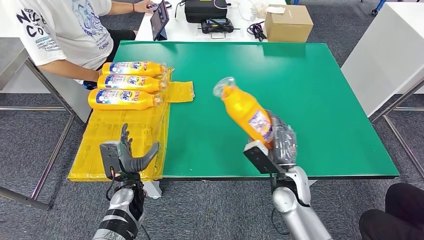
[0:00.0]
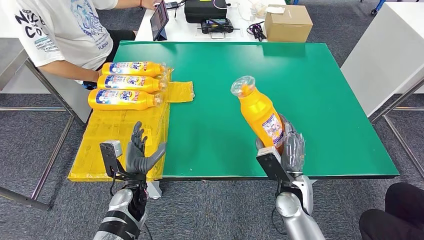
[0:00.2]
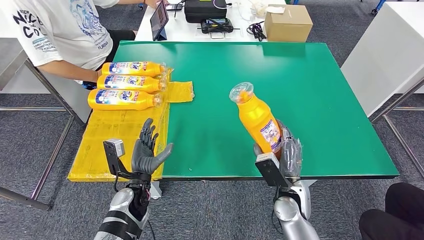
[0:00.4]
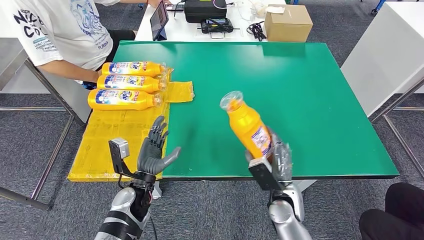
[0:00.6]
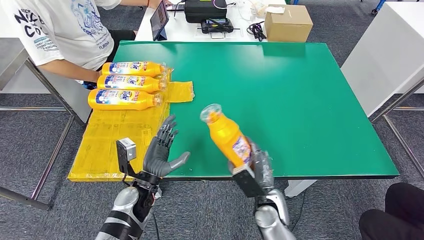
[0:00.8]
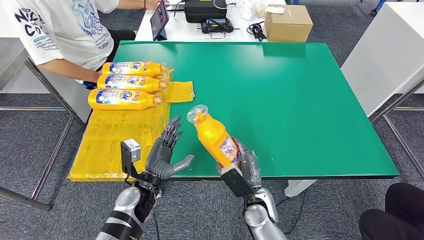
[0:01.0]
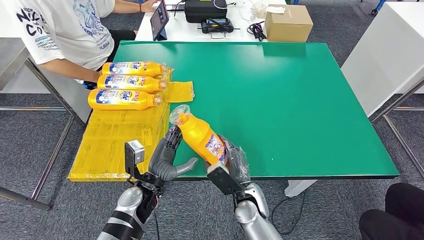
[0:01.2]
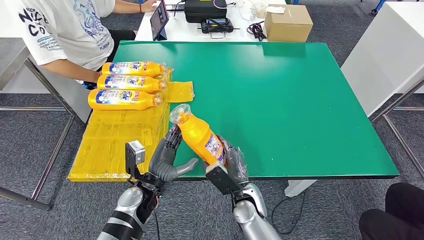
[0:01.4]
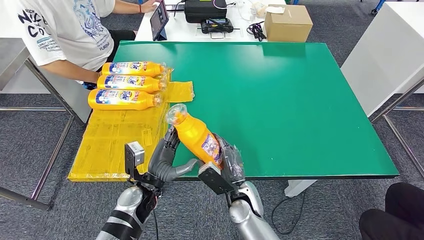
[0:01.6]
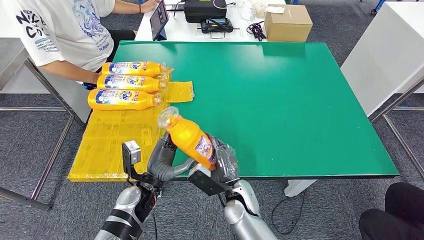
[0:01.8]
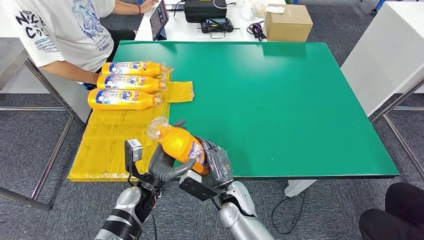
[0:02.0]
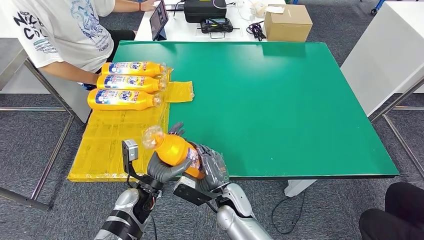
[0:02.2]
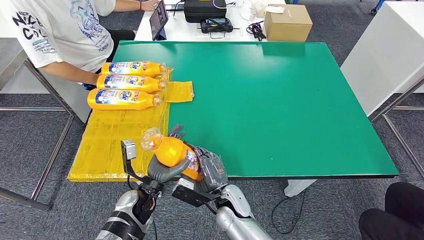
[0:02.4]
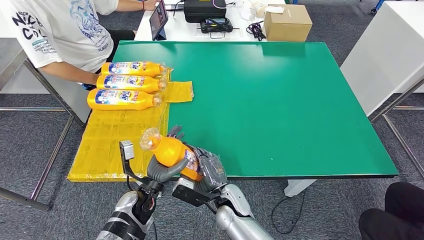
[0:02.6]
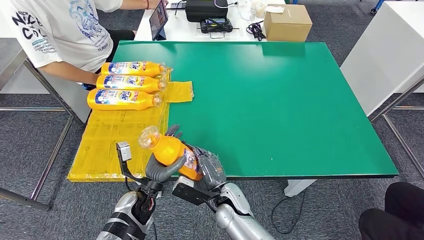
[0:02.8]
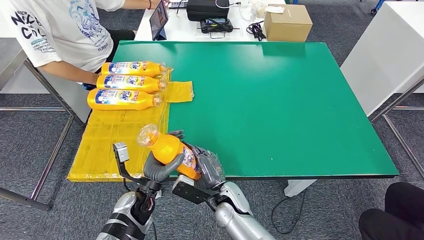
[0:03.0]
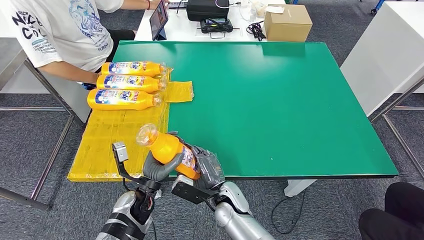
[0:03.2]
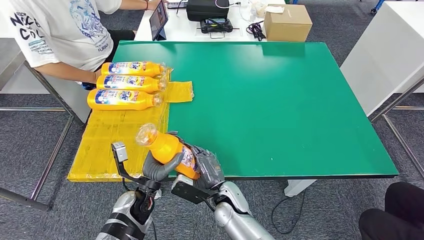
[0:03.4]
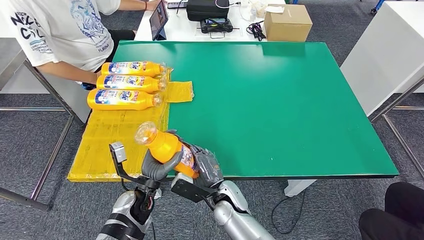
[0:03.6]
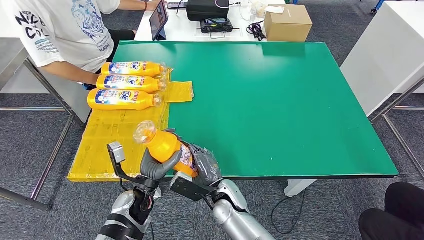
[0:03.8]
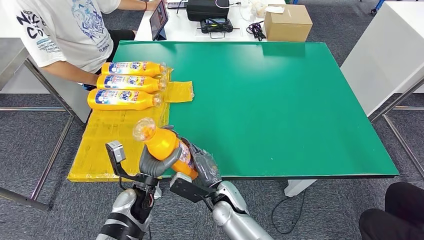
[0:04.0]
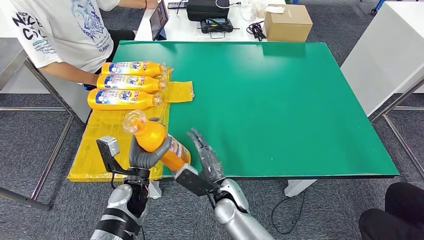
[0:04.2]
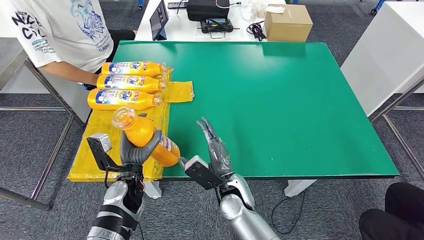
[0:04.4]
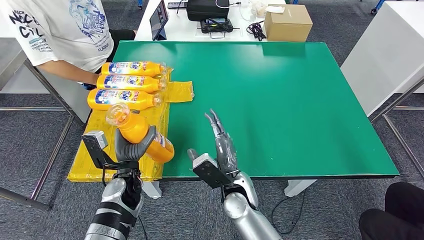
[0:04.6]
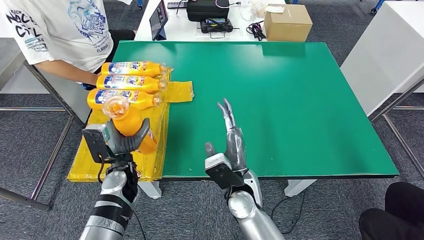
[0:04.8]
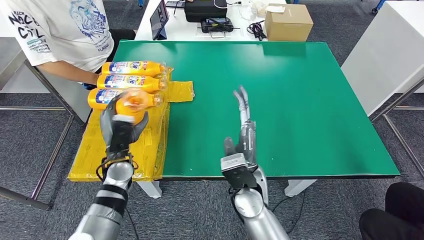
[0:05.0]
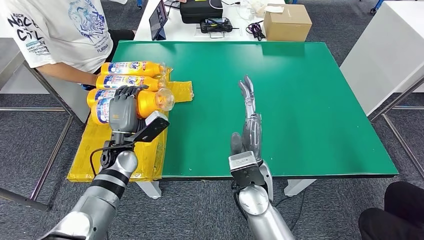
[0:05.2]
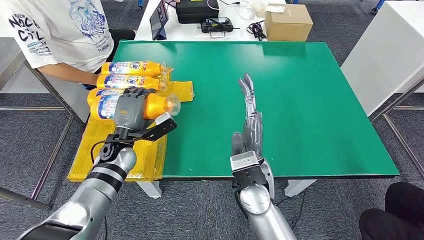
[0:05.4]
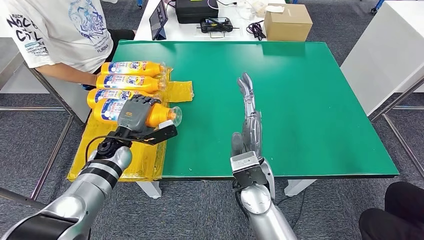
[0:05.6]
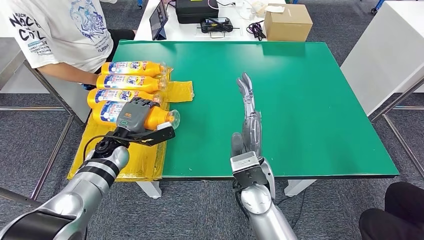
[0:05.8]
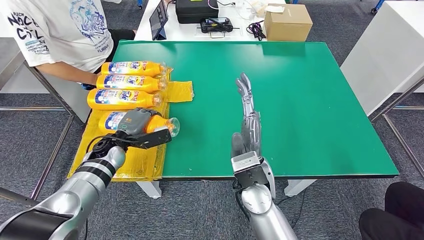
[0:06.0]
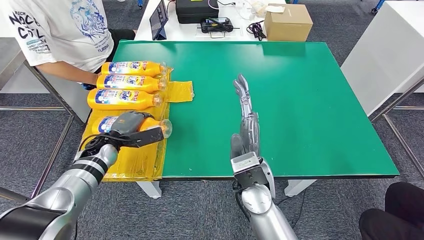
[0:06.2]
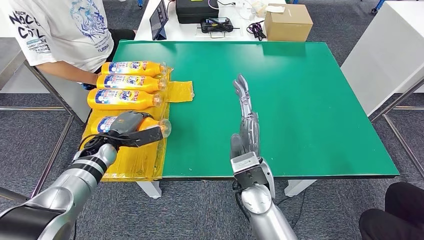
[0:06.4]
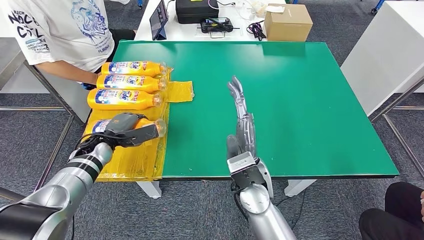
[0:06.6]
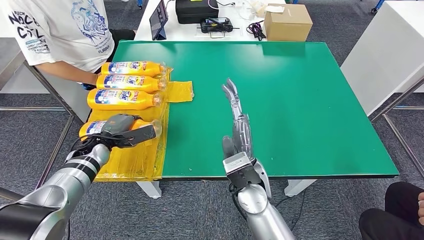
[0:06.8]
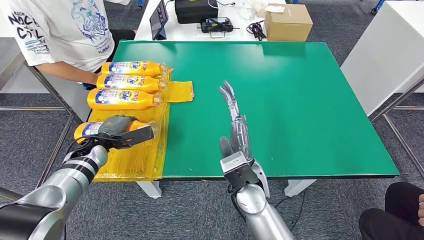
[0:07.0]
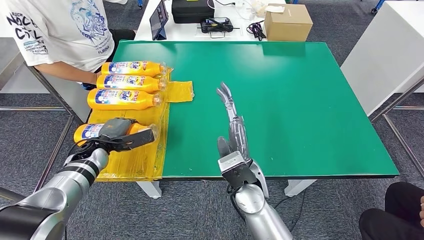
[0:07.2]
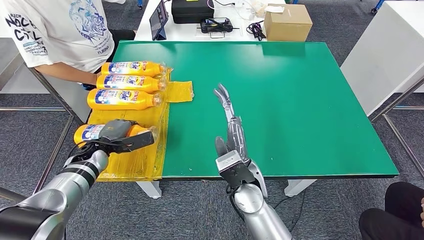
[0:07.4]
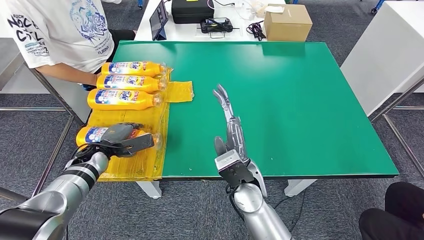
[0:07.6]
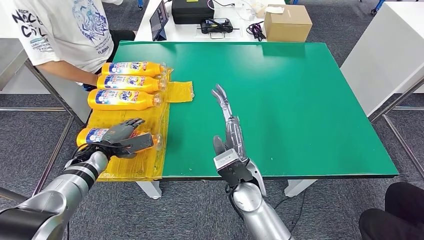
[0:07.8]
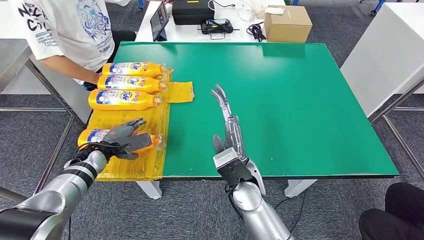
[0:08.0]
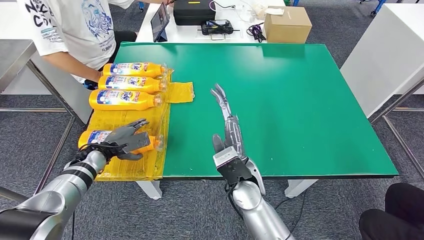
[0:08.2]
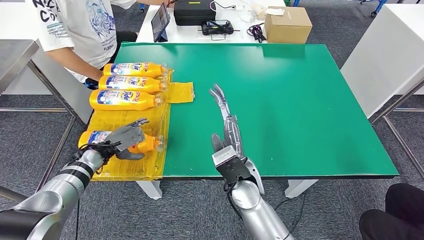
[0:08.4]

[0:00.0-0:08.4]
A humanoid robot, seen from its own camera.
Step, 0:01.8 to 0:08.4: Flip the bottle to face forward.
0:00.0 to 0:01.4: The right hand is displaced to the left by approximately 10 cm, while the left hand moves approximately 5 cm.
0:05.6 to 0:07.0: The left hand moves to the left, approximately 10 cm.
